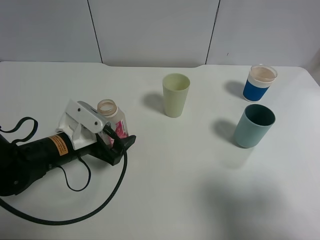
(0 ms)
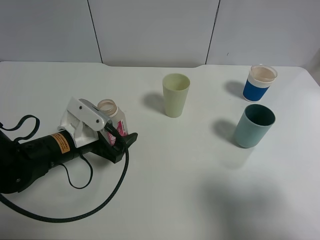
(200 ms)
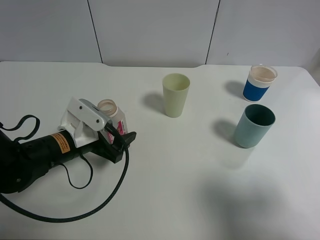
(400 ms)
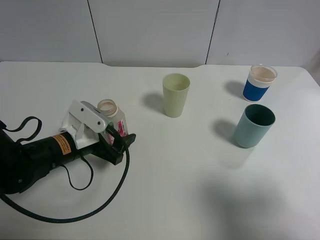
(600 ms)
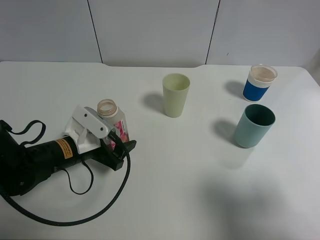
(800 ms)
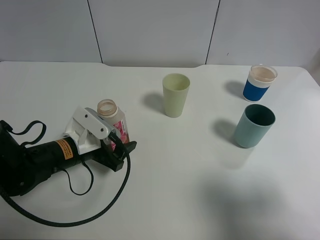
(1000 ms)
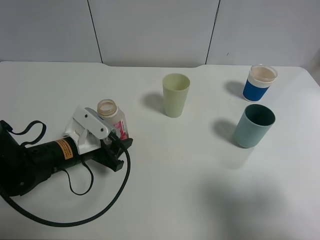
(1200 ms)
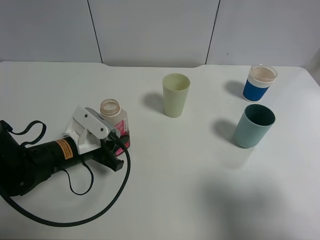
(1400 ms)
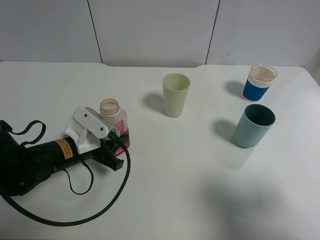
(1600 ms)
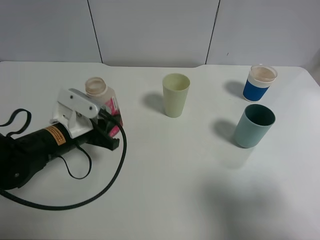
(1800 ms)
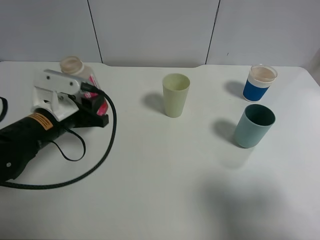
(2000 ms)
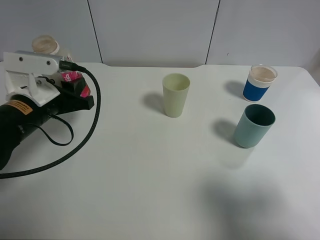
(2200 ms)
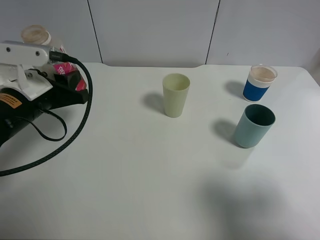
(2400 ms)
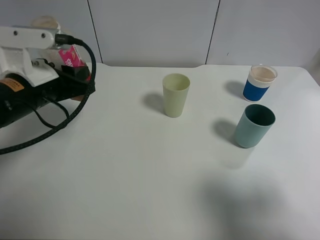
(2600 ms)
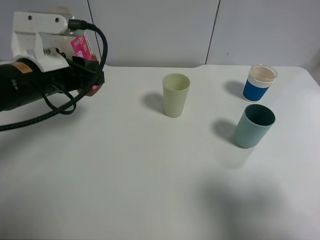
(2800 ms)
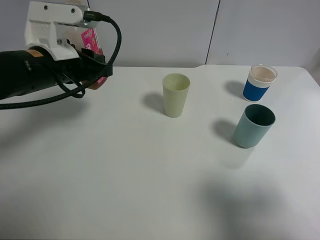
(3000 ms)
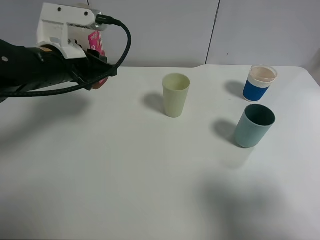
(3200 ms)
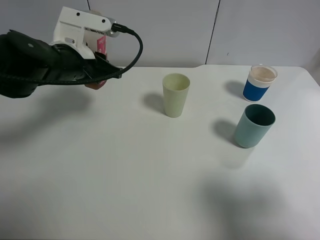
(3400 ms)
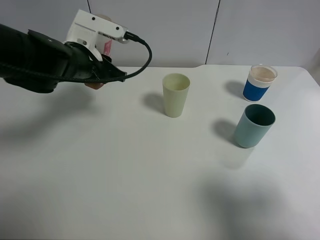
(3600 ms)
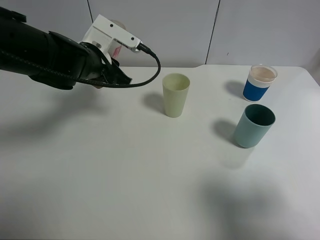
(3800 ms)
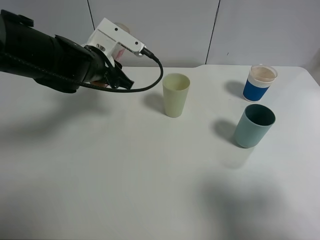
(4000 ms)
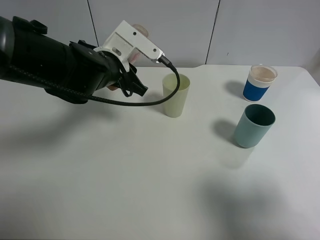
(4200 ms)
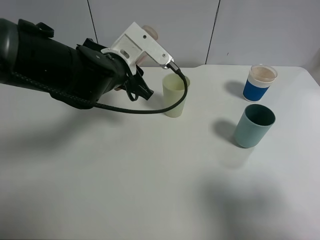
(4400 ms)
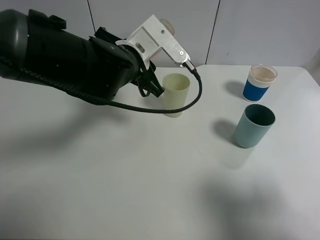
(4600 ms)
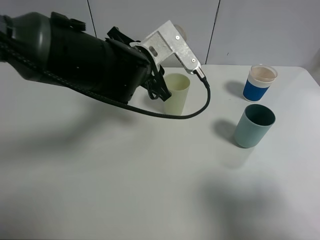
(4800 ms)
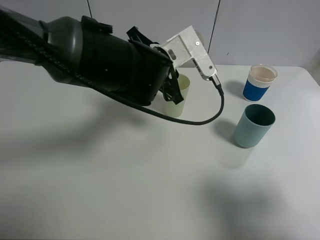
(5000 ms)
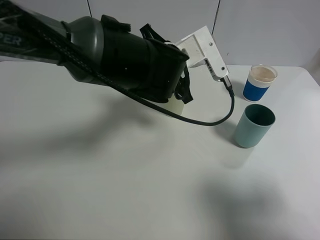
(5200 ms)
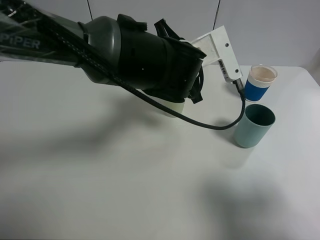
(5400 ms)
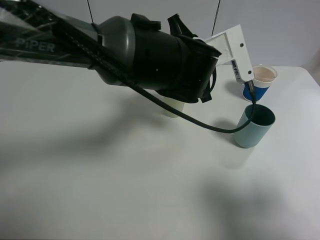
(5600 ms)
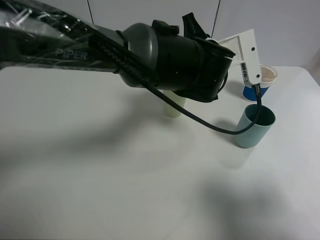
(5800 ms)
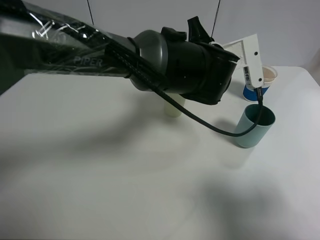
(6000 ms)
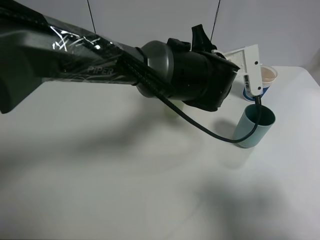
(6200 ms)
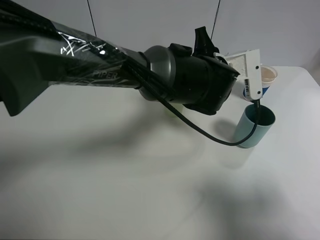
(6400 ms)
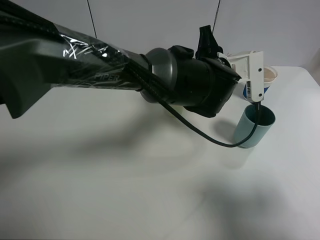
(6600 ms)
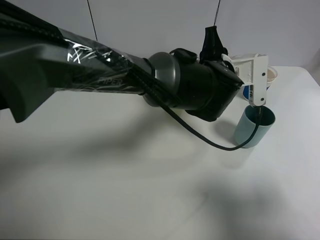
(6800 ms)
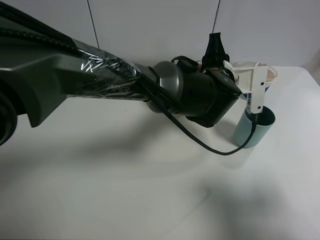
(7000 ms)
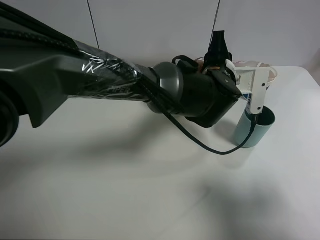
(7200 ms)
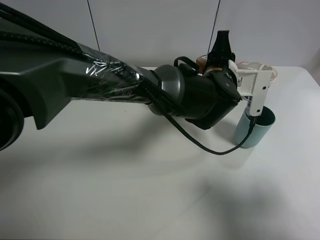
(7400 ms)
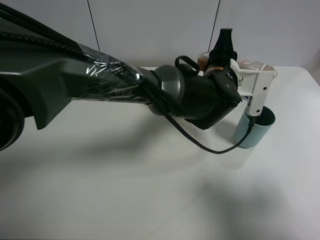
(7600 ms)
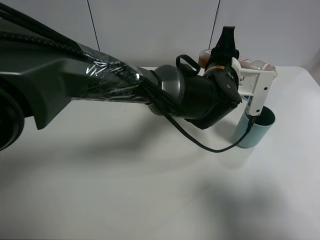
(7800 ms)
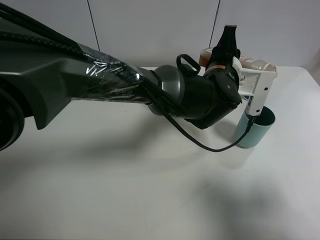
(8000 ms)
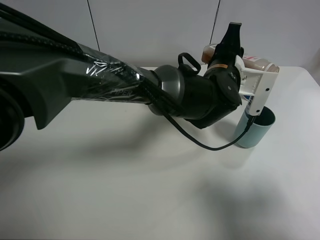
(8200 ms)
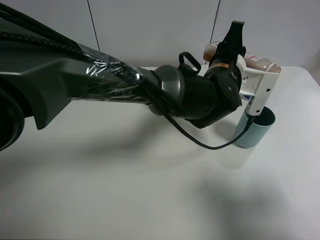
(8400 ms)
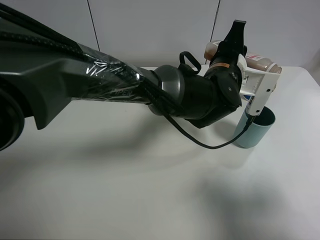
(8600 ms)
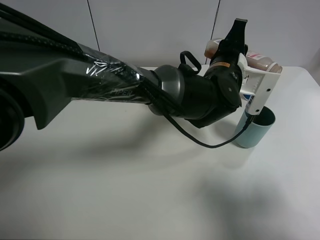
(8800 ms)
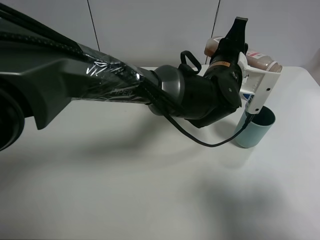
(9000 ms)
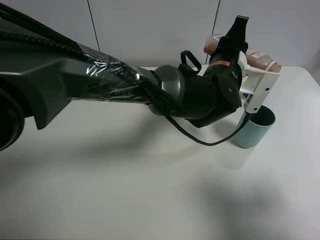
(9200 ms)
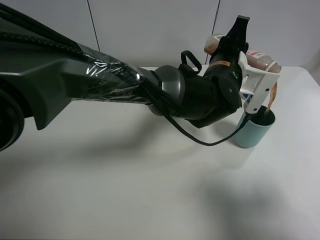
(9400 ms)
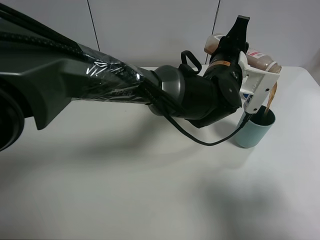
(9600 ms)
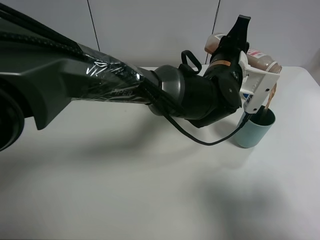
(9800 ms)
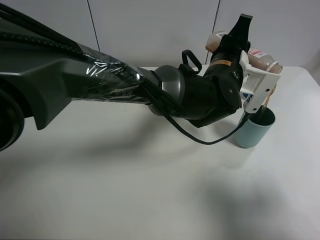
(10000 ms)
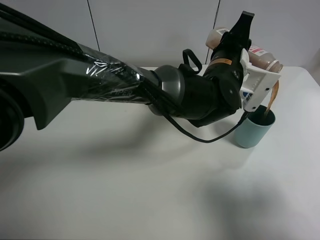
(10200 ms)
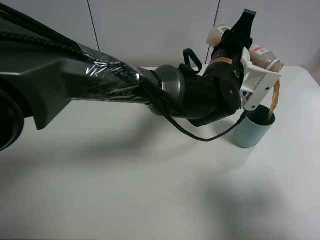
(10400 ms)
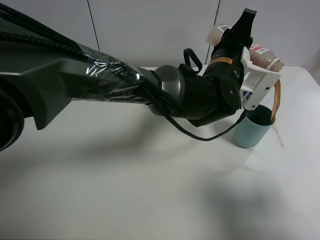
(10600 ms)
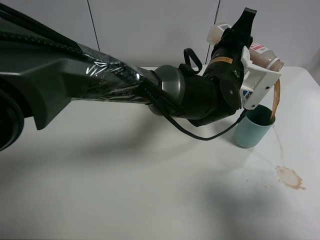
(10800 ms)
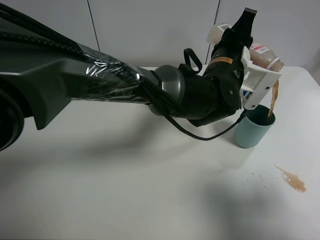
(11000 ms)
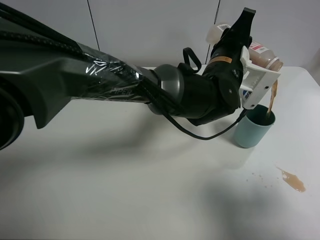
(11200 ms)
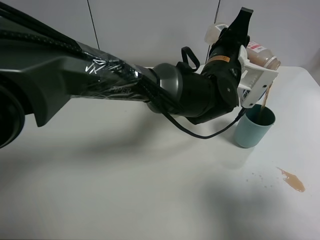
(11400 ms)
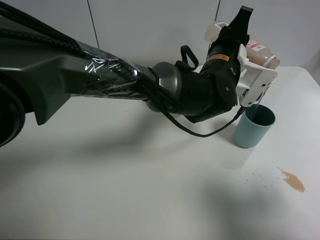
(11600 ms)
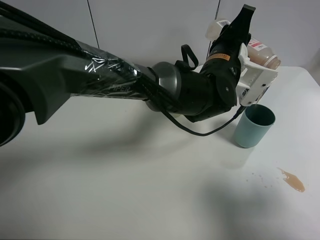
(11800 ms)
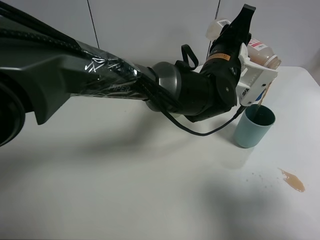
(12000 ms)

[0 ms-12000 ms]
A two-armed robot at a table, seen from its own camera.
Task of the whole recording: use a clamp to hold the bottle of the drink, pour the beverage into a random cup, then clamp the cup containing the drink and pour the drink into another random cup.
Step, 0 ms to 2000 ms: Pick up the drink bottle with left gripper.
0 ms to 1600 ms: The left gripper closes up.
1600 ms to 3000 ms: The left gripper travels upward by approximately 15 cm.
3000 ms to 4400 ms: The left gripper goes roughly 10 cm to the right.
4400 ms to 6000 ms: The left gripper shifts some 15 cm to the right.
7600 ms to 10400 ms: There are only small adjustments of the grippers.
10400 ms to 12000 ms: The two grippers keep their place.

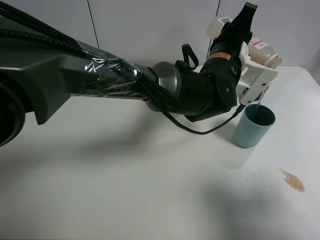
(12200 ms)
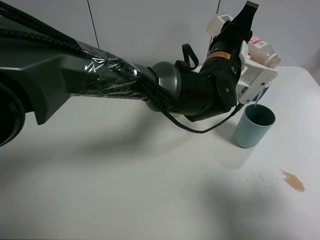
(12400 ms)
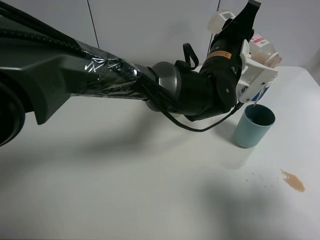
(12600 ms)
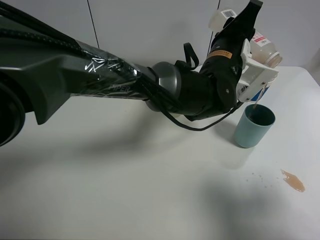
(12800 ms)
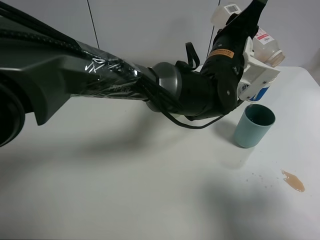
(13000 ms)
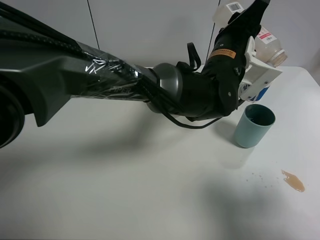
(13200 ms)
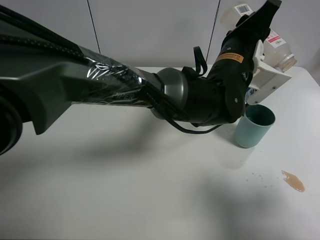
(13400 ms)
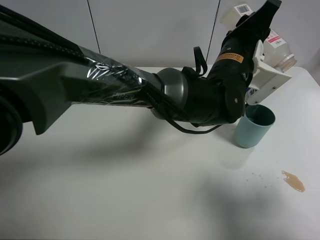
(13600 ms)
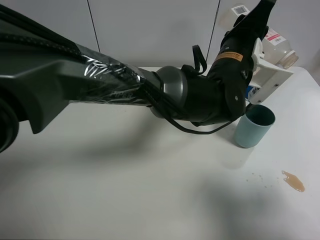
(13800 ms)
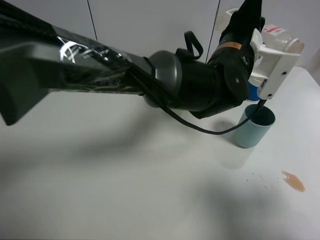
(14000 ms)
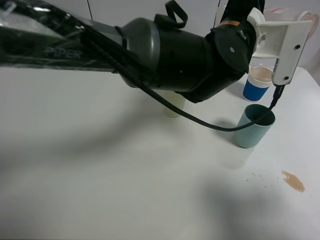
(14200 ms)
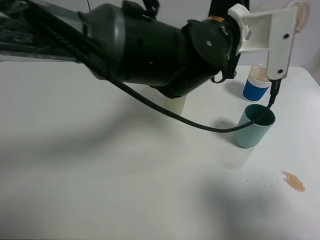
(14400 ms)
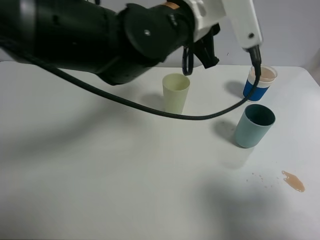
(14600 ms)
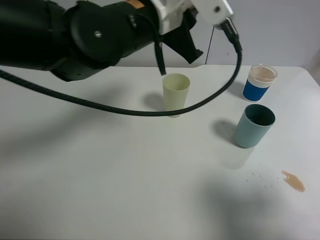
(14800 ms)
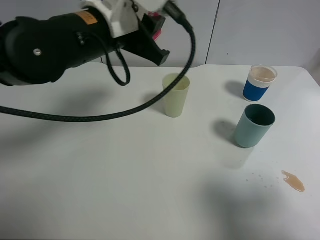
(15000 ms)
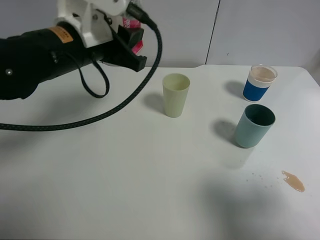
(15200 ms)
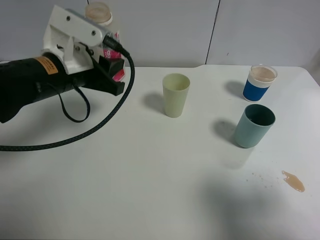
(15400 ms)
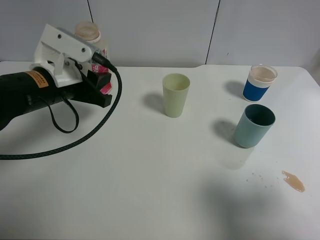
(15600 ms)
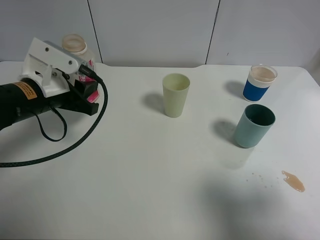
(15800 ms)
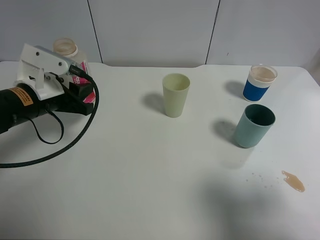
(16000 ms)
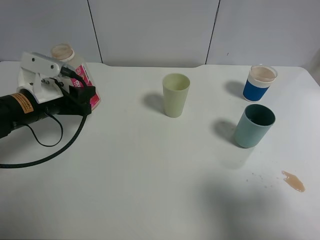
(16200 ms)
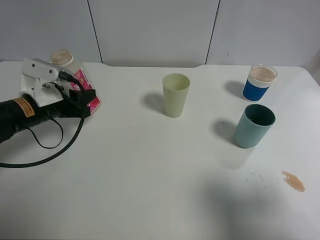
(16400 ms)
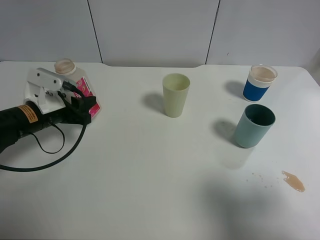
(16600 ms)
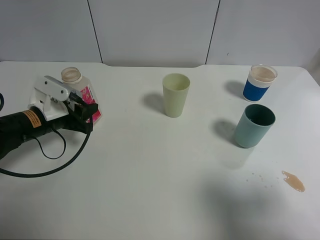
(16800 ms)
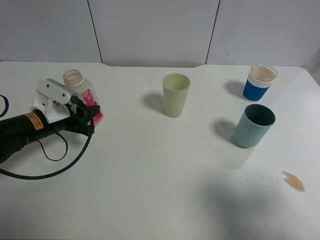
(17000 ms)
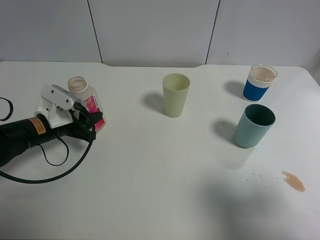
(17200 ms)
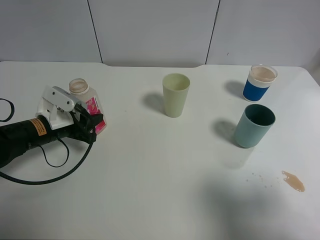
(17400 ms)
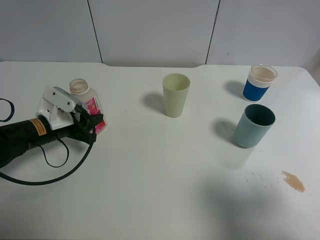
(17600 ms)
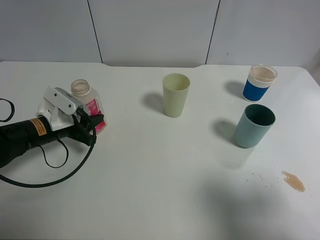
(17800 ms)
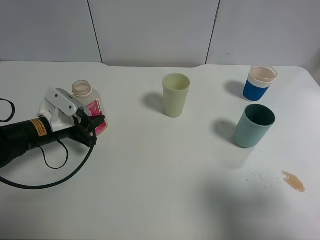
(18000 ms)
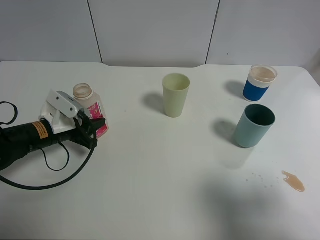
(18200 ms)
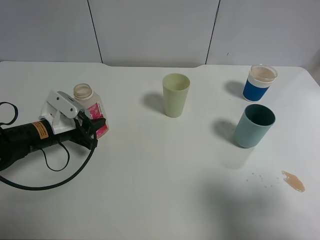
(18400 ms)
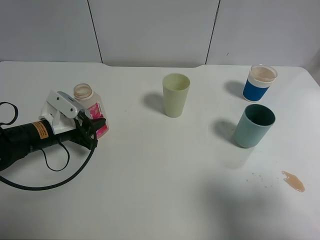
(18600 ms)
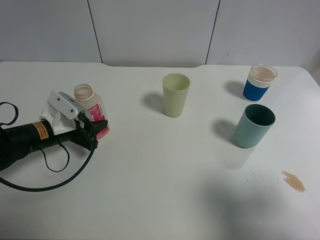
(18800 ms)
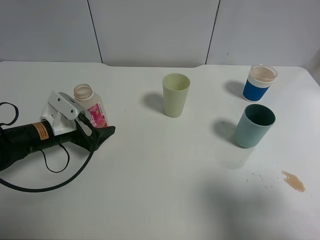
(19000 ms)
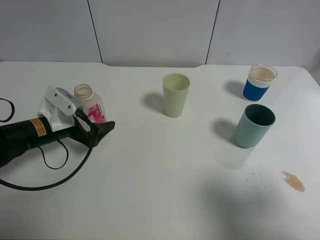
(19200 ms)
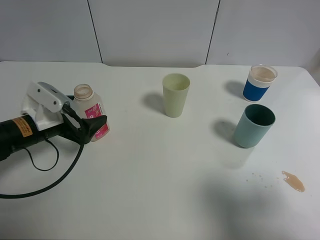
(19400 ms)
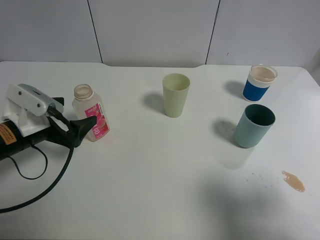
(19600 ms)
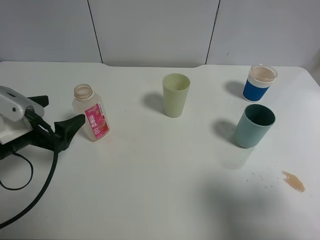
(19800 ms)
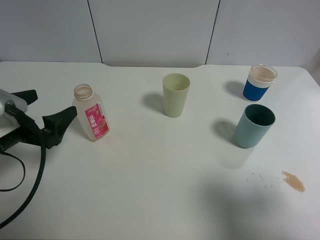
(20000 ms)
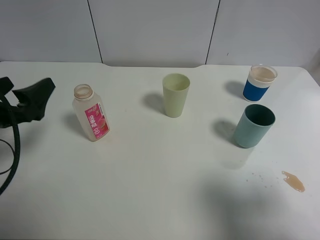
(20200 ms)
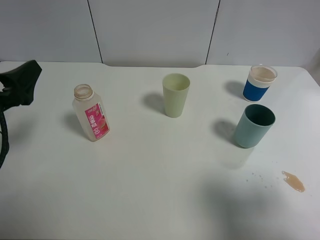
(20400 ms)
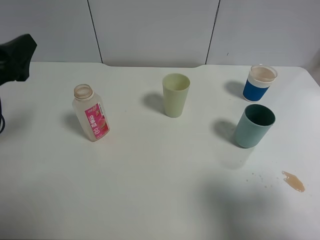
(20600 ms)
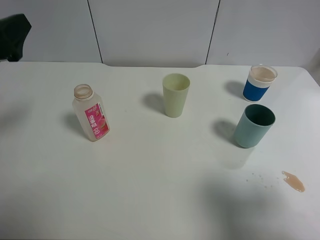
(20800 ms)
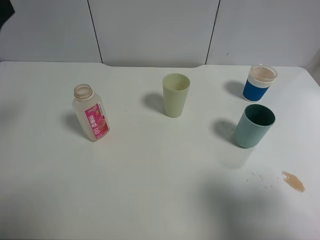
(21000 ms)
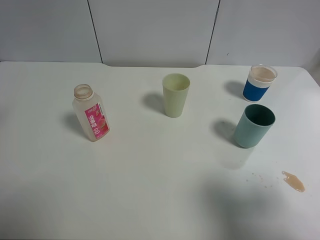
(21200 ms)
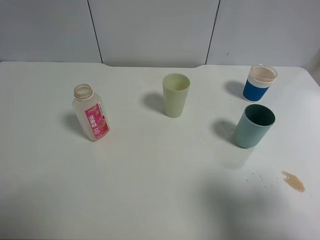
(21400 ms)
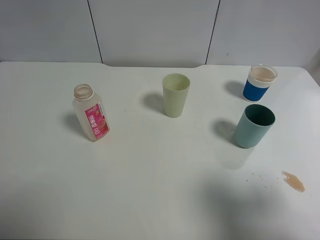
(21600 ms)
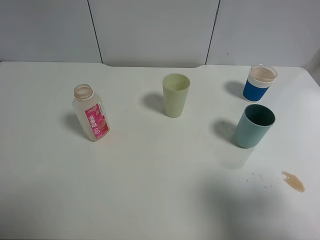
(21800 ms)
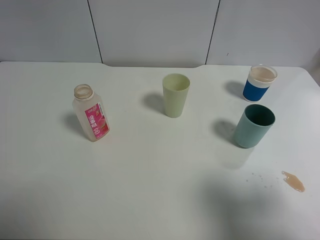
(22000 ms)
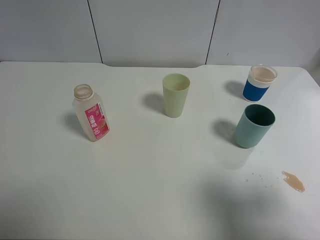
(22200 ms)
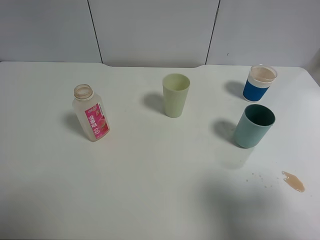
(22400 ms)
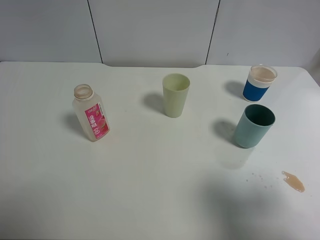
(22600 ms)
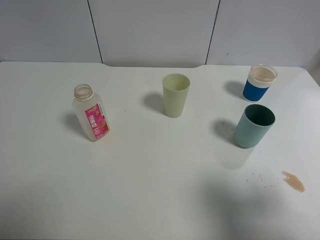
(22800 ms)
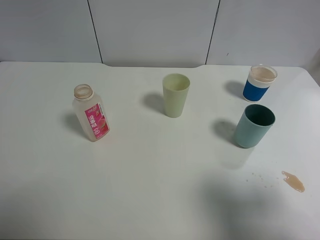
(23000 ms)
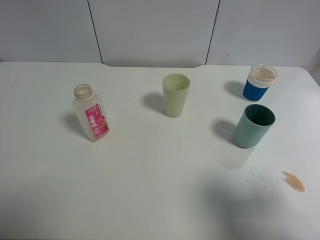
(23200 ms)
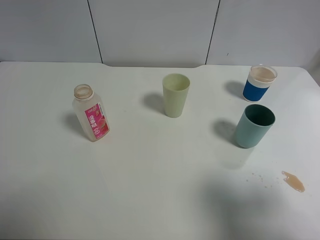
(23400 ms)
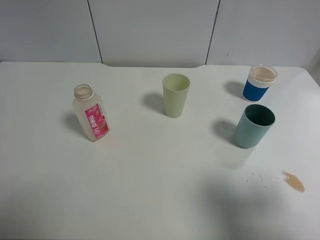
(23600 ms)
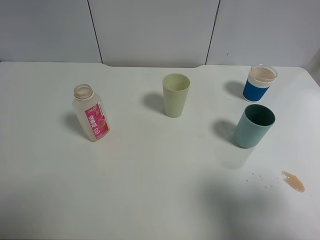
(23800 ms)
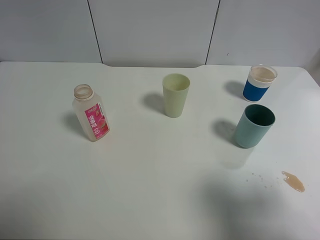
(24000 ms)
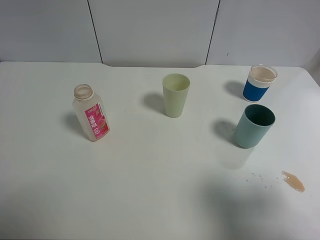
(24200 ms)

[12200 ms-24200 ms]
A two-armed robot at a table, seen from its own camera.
Task of the whole recording: use a clamp to hold the bottle of the drink, pour the beverage into a random cup, then clamp the cup containing the drink and pour the drink into another random cup.
Step, 14200 ms to 19400 ms: Place the drink bottle on the table with left gripper.
12200 ms to 13800 ms: The grippers make only small movements.
13800 ms to 15200 ms: The left gripper travels to the left by roughly 25 cm.
15200 ms to 16600 ms: The left gripper moves downward and to the left, roughly 20 cm.
16600 ms to 18200 ms: There are only small adjustments of the grippers.
18200 ms to 19800 ms: The left gripper goes some 10 cm backward and upward, and opens.
19800 ms to 21200 ms: The left gripper travels upward by roughly 20 cm.
